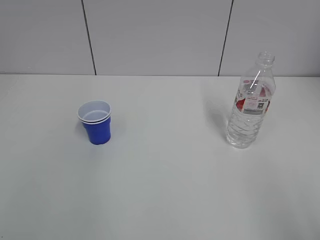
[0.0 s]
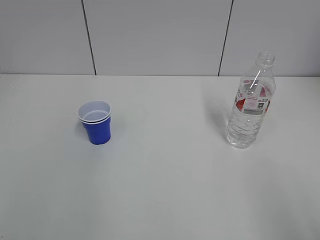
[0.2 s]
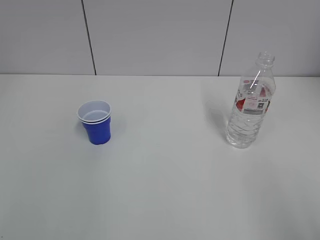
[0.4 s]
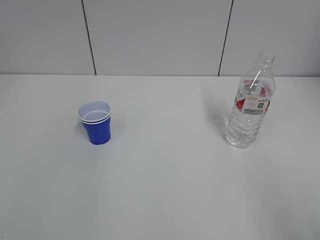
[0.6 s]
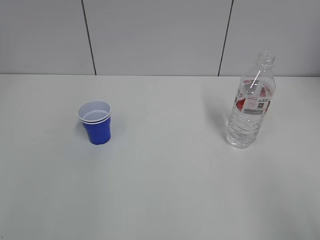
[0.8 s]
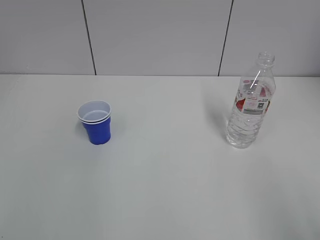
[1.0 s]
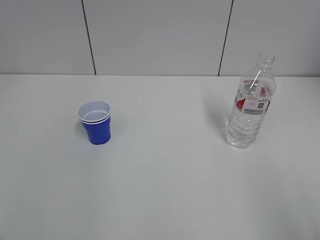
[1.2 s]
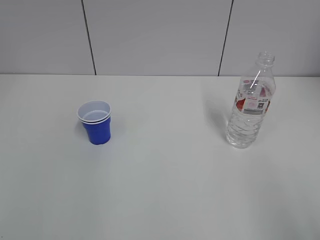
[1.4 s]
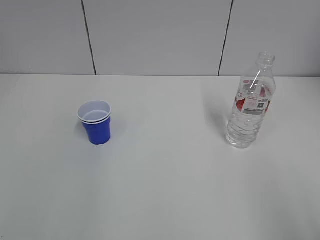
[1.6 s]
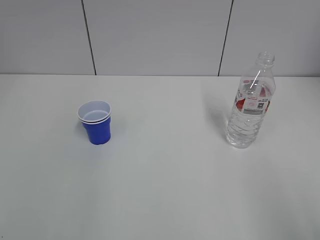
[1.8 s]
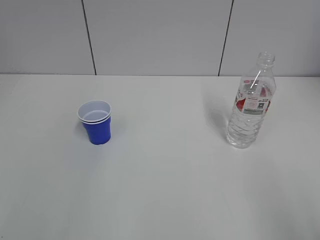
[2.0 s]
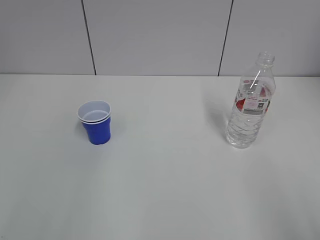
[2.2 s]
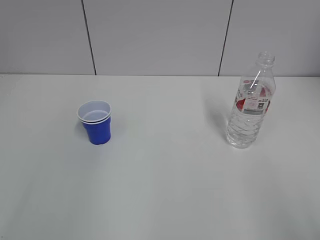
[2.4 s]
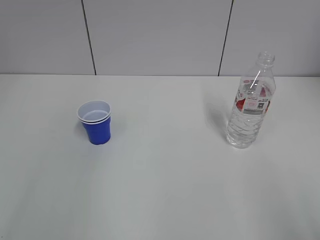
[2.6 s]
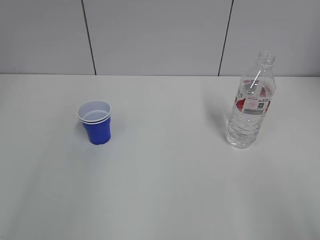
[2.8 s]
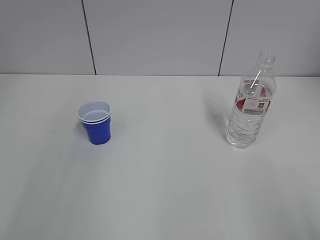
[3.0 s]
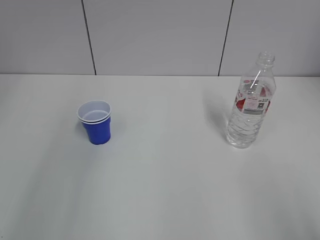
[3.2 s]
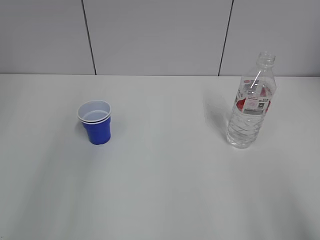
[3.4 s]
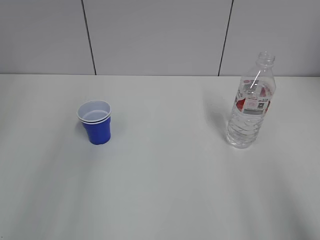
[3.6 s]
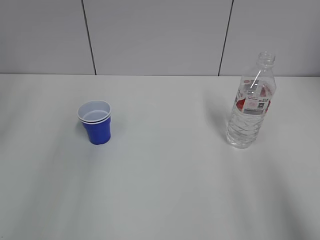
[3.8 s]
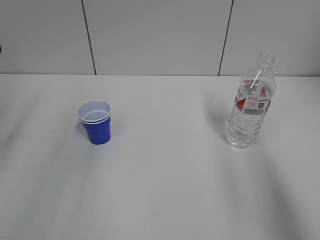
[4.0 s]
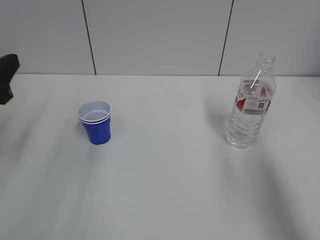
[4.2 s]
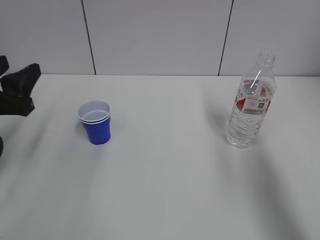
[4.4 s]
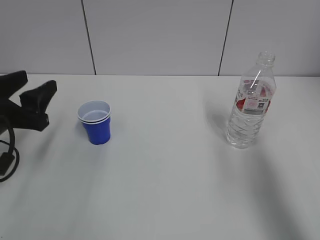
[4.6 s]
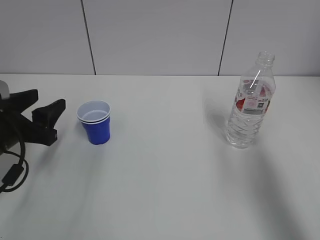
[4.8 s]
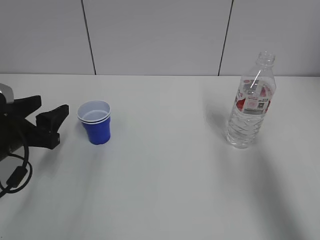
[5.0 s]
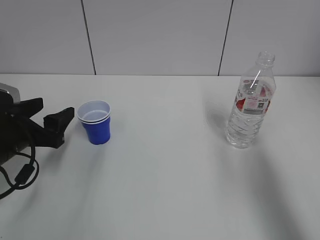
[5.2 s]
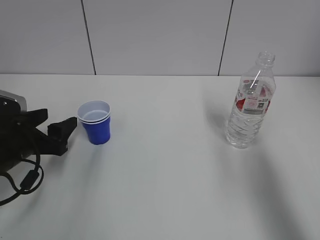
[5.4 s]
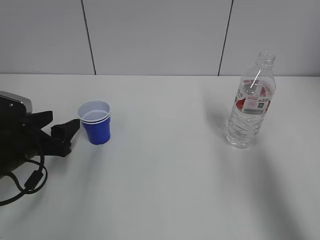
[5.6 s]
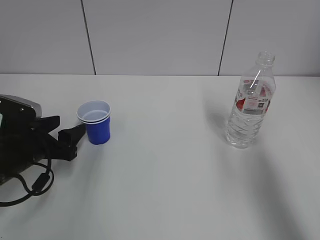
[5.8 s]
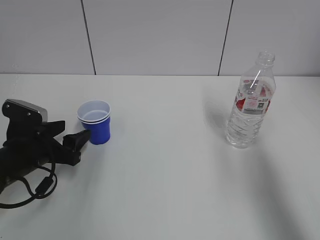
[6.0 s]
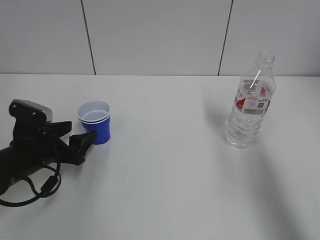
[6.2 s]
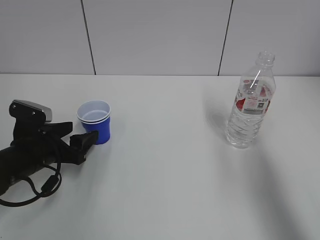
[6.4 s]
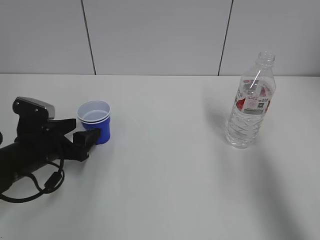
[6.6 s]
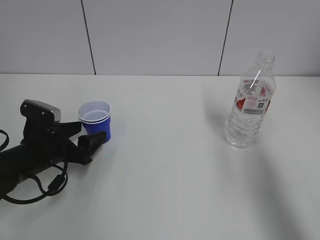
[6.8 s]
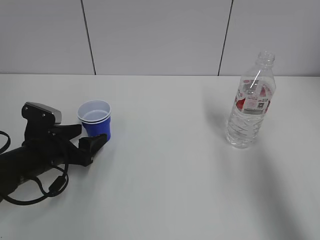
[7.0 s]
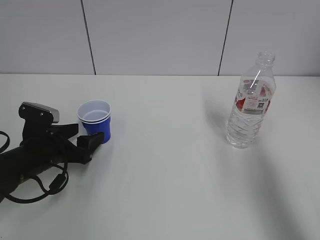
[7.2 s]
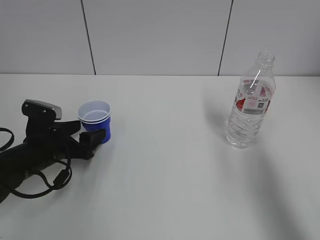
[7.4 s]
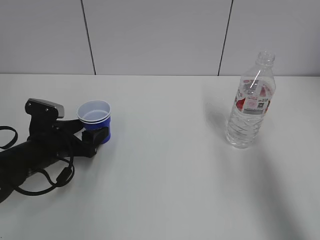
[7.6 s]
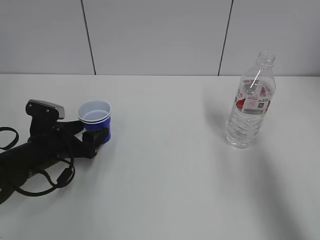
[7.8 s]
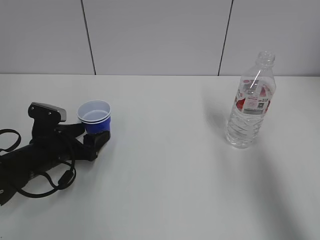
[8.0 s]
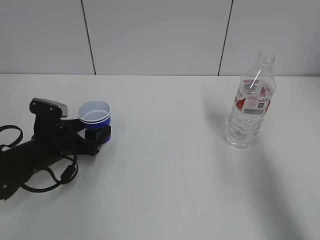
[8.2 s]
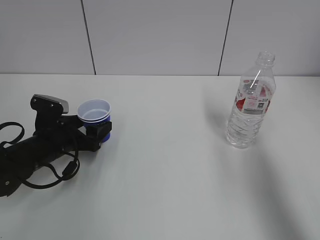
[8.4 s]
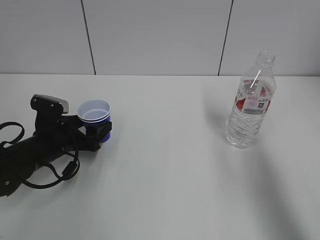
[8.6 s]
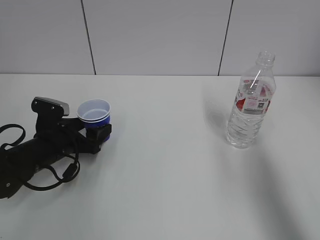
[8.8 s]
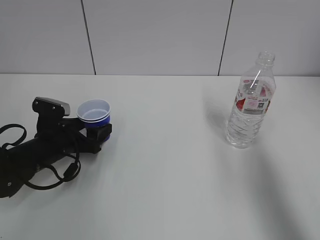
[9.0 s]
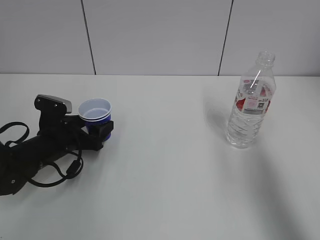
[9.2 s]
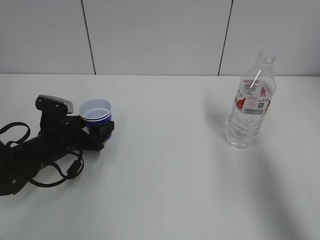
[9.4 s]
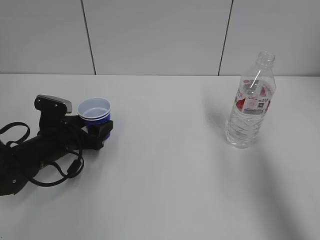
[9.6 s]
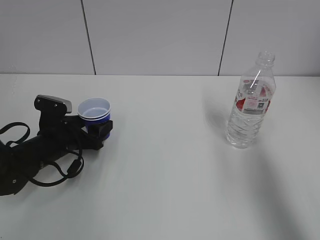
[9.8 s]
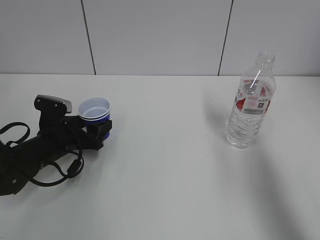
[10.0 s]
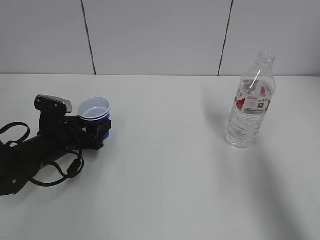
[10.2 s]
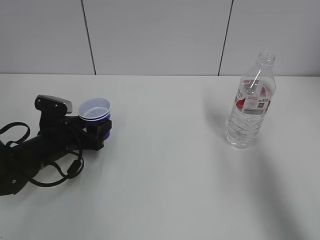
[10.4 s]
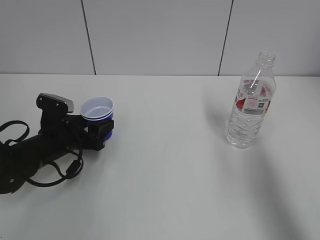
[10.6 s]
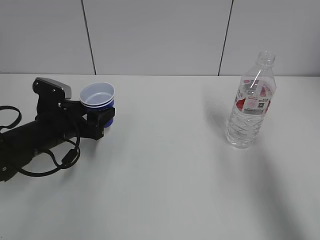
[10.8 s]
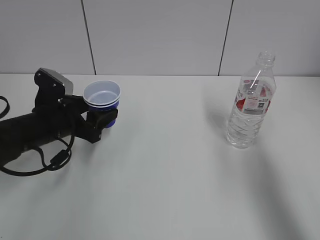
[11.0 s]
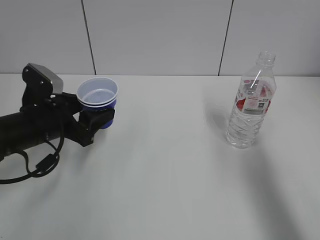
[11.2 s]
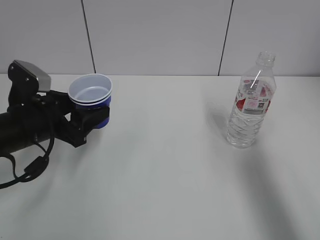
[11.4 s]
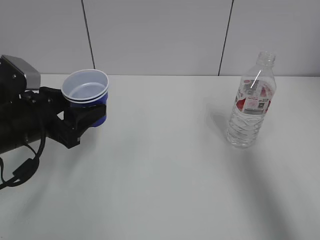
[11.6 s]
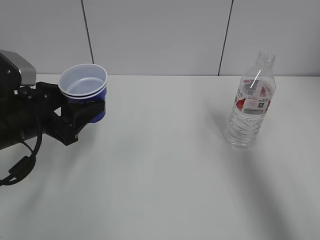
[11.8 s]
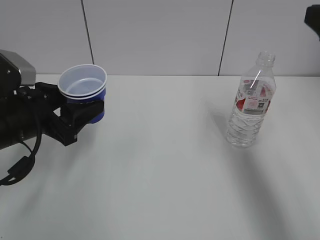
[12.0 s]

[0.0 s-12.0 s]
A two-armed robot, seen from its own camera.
Step, 0.0 to 9.2 s: Grab the paper cup with the left hand.
3.0 to 4.4 s: The left gripper heads downward, forward and to the right, covering about 20 cm. Meanwhile the right gripper heads forward and upward, covering roughly 15 cm.
4.4 to 6.0 s: The left gripper is displaced downward by about 15 cm.
6.0 to 9.0 s: The grippers stay close to where they were, moving slightly.
9.0 to 10.4 s: The left gripper closes its fingers.
10.4 to 12.0 s: The right gripper shifts some 10 cm forward. The left gripper travels upward and backward by approximately 15 cm.

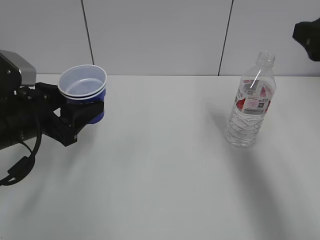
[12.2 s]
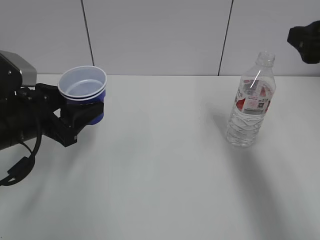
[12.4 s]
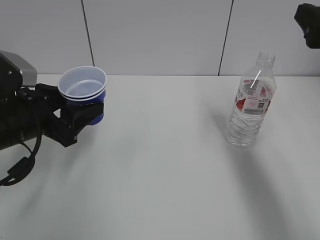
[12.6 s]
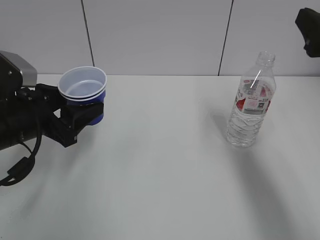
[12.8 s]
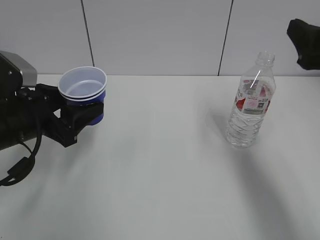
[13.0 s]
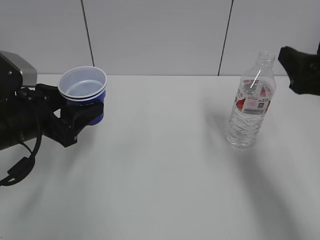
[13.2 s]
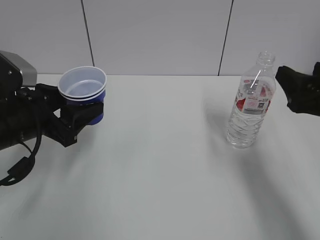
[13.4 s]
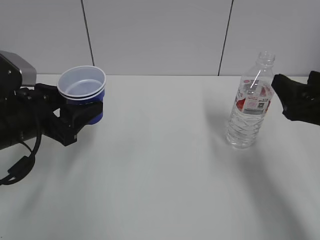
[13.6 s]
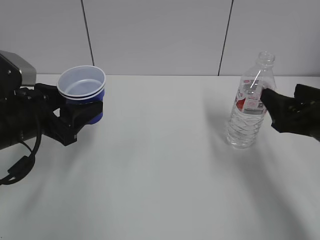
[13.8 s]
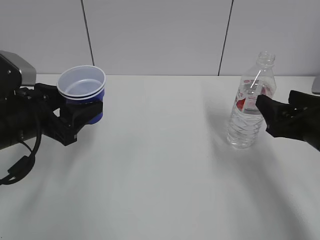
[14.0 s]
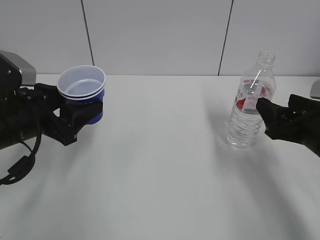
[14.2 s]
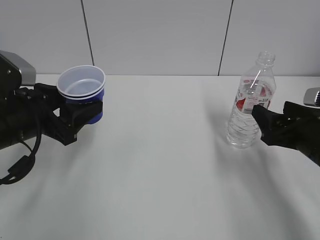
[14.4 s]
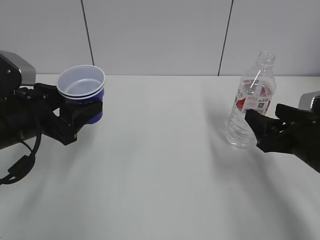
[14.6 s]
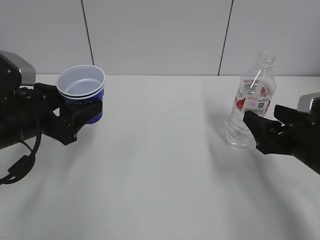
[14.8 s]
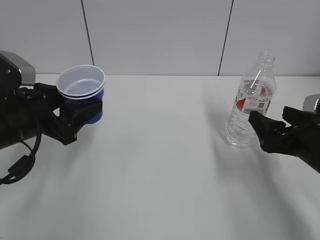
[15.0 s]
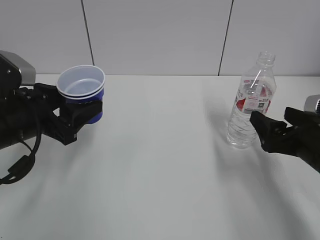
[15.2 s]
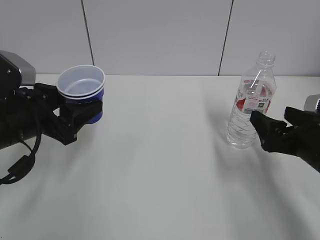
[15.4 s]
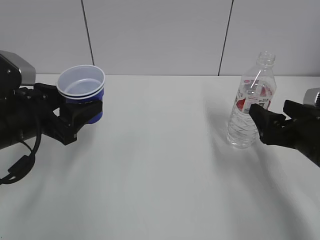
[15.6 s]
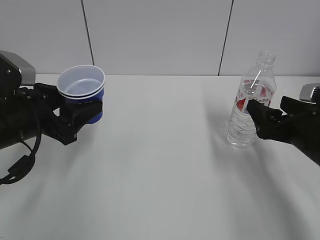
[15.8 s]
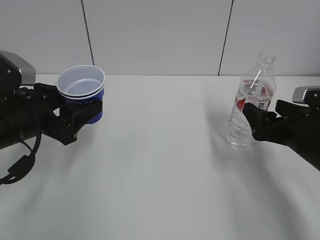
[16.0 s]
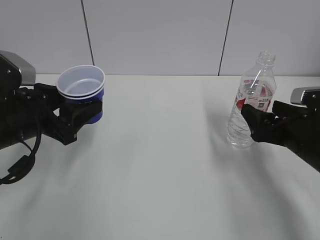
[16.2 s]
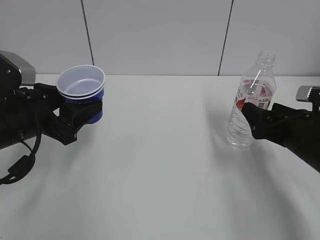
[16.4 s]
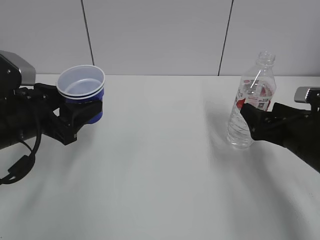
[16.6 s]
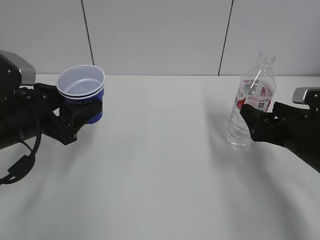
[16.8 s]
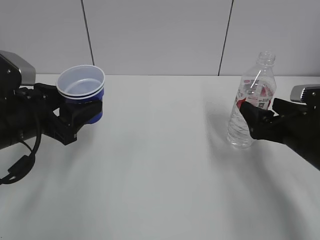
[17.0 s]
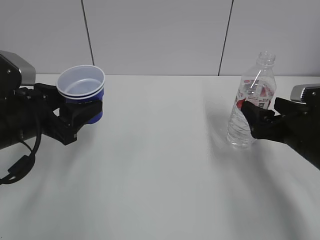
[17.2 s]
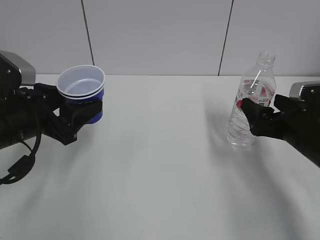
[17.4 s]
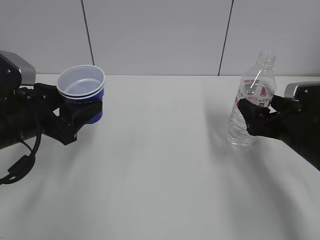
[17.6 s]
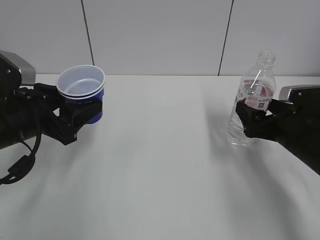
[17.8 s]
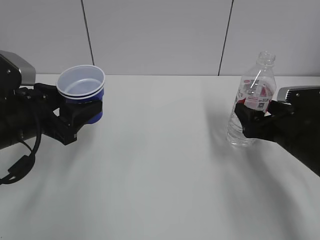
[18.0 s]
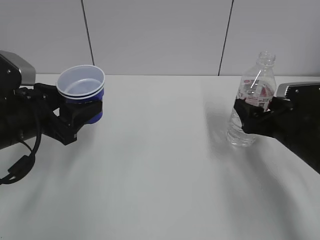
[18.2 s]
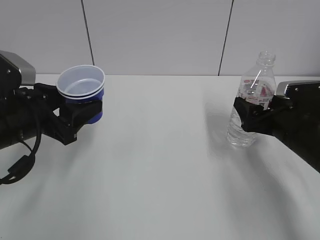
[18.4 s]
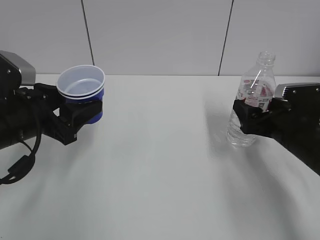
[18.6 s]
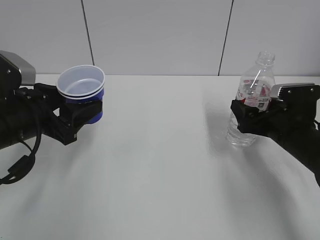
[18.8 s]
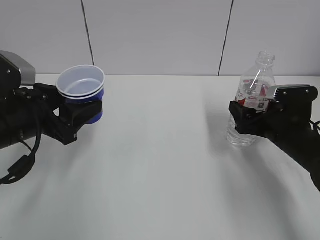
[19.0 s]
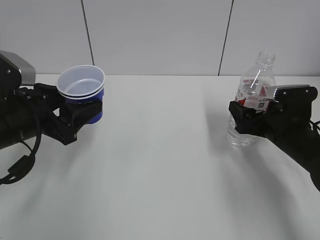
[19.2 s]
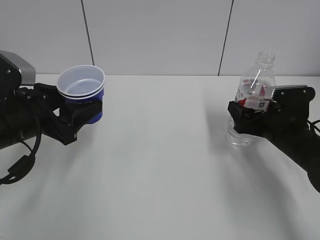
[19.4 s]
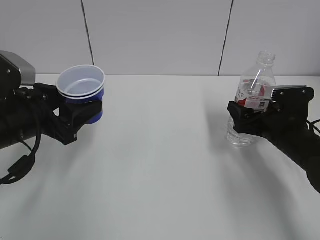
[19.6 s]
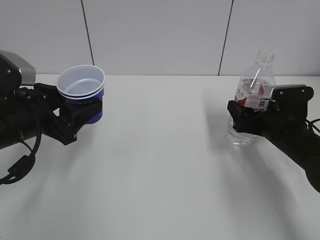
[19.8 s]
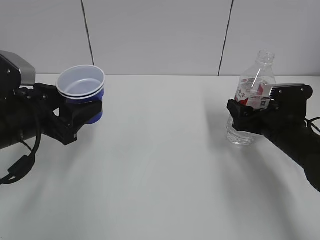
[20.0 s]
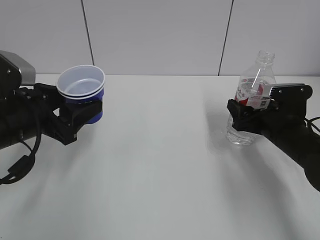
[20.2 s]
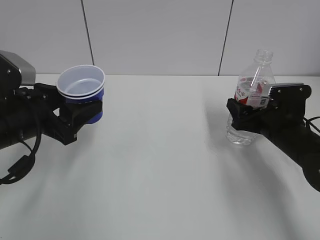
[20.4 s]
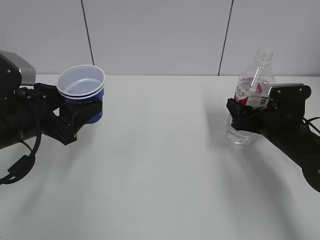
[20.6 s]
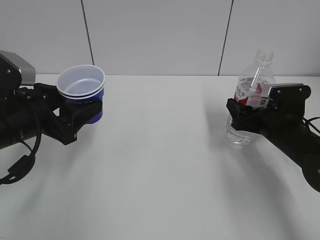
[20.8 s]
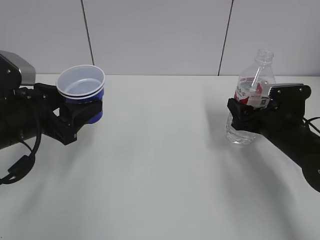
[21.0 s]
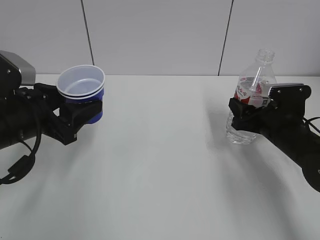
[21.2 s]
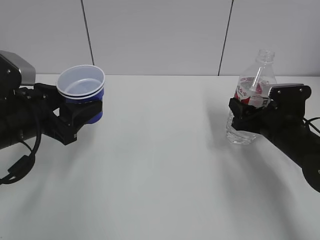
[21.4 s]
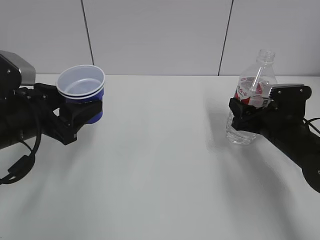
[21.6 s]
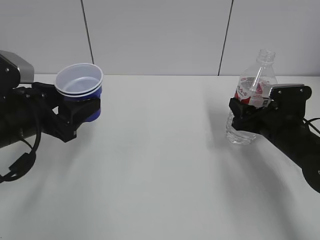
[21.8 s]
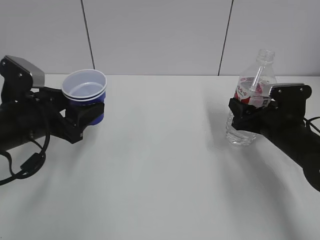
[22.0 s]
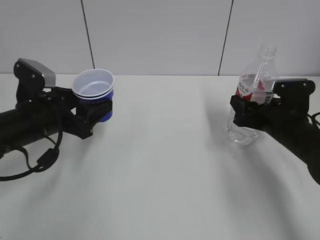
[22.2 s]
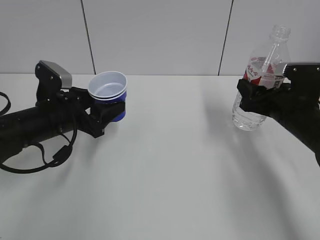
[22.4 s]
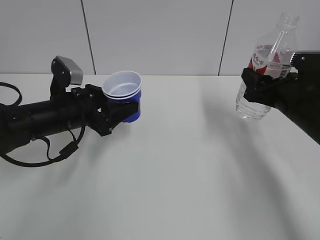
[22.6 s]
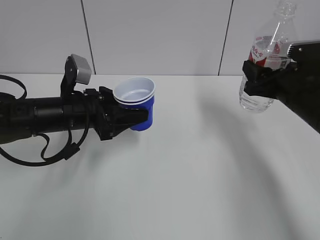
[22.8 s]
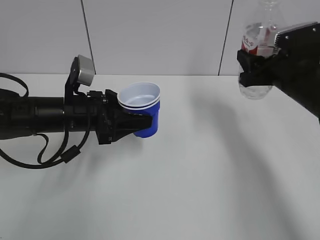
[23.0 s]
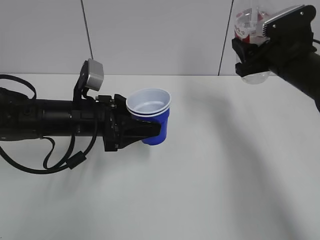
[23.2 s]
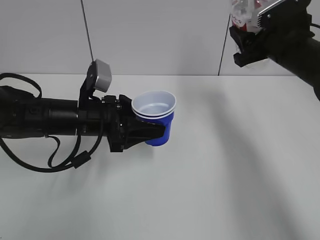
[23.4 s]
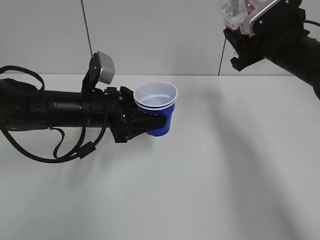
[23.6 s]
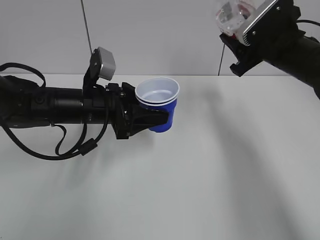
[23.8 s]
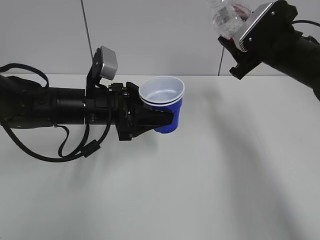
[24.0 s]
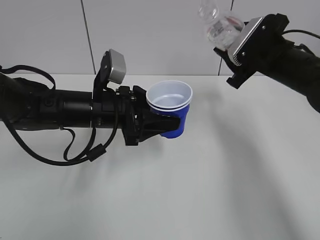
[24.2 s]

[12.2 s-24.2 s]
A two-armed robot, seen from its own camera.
Step, 12.2 to 19.8 s: Grab the water bottle with the right hand.
Step, 20.0 to 22.8 s: Lift the paper cup with the left hand.
12.2 to 13.8 s: The right gripper goes approximately 10 cm downward.
13.8 to 15.2 s: The right gripper opens up.
15.2 to 18.2 s: The grippers move only a little.
18.2 to 19.8 s: The grippers stay close to where they were, moving slightly.
19.8 to 21.2 s: The right gripper closes its fingers.
21.2 to 22.6 s: The left gripper goes roughly 5 cm forward. The right gripper moves upward, roughly 5 cm.
22.6 to 24.2 s: The left gripper goes roughly 5 cm to the right. Meanwhile the right gripper heads forward, covering about 5 cm.
